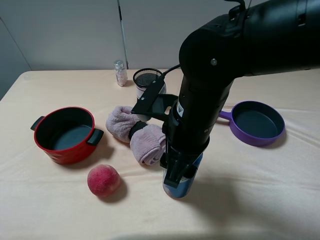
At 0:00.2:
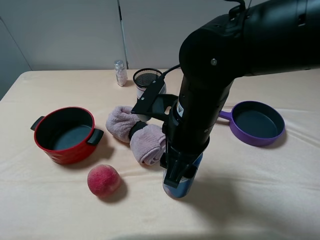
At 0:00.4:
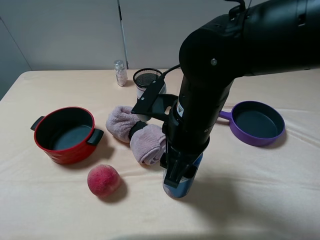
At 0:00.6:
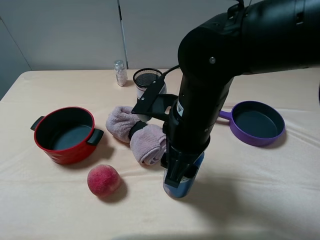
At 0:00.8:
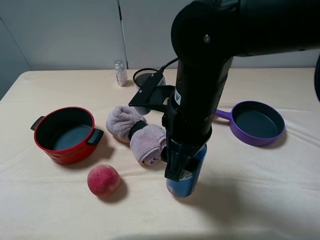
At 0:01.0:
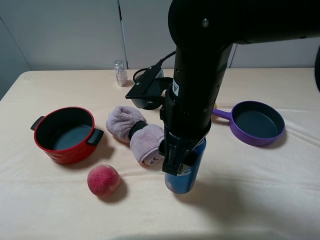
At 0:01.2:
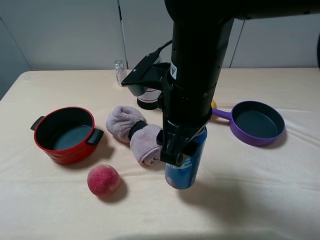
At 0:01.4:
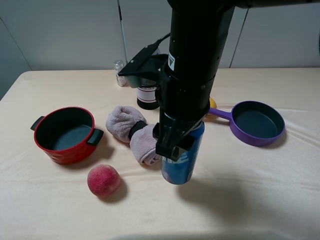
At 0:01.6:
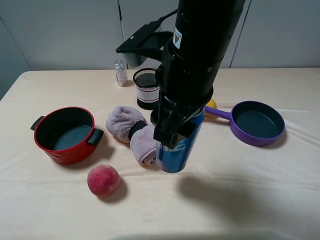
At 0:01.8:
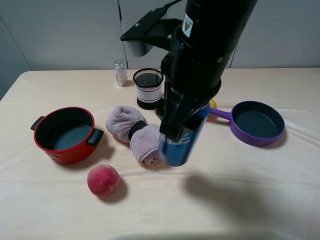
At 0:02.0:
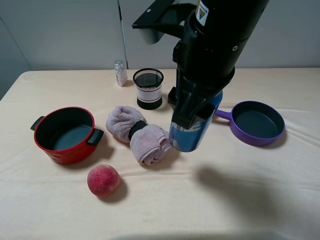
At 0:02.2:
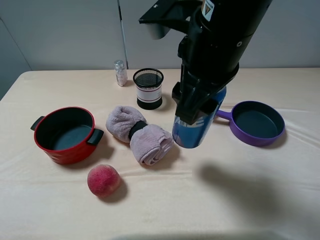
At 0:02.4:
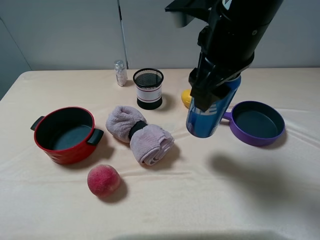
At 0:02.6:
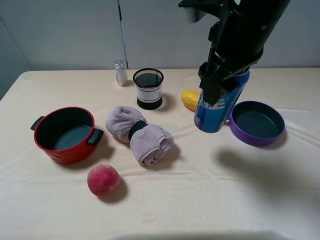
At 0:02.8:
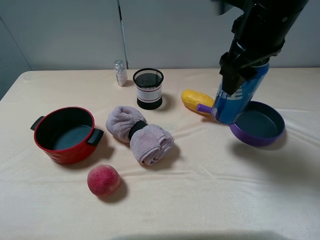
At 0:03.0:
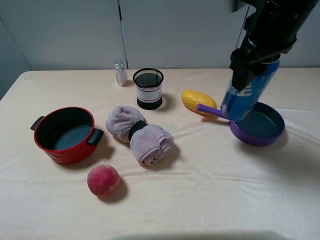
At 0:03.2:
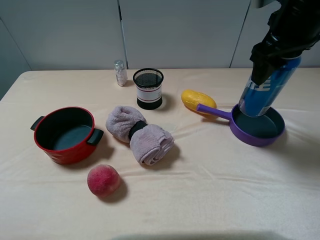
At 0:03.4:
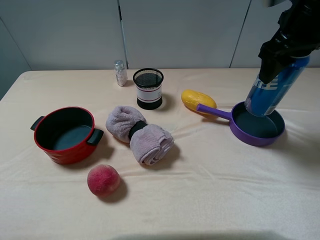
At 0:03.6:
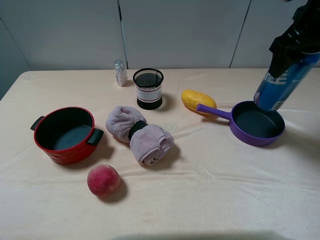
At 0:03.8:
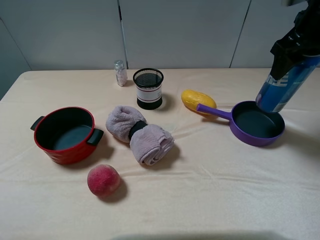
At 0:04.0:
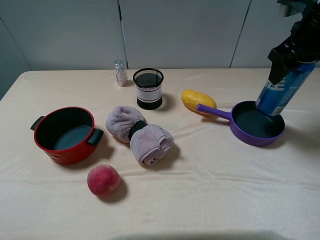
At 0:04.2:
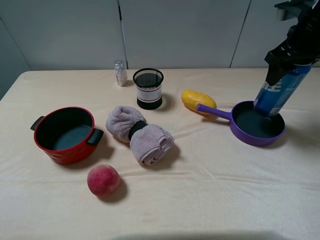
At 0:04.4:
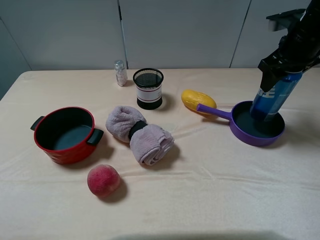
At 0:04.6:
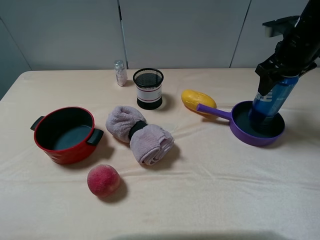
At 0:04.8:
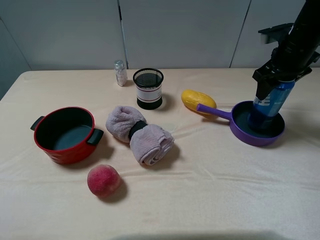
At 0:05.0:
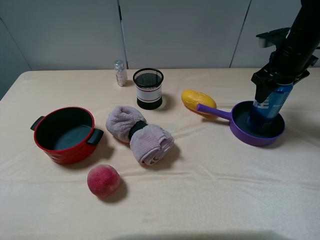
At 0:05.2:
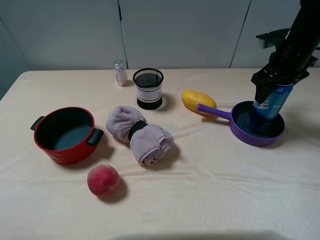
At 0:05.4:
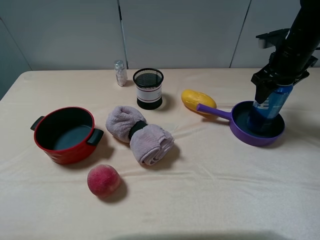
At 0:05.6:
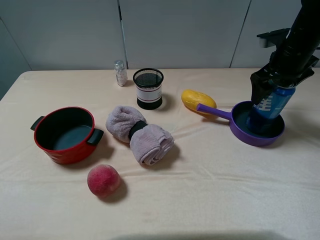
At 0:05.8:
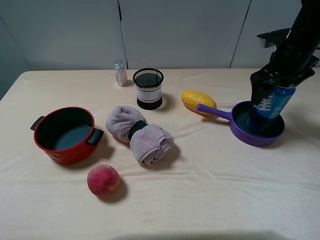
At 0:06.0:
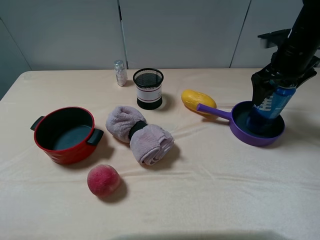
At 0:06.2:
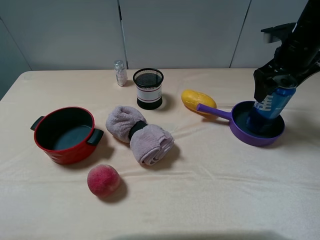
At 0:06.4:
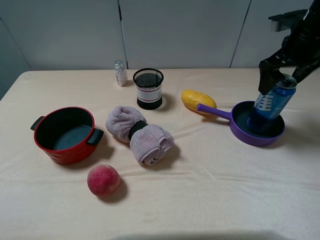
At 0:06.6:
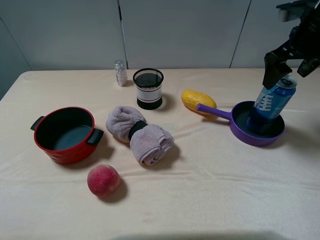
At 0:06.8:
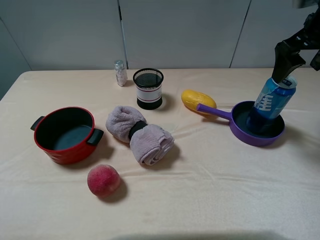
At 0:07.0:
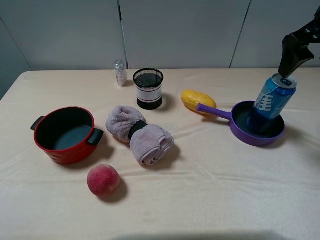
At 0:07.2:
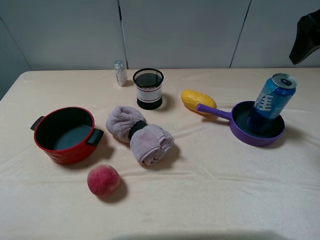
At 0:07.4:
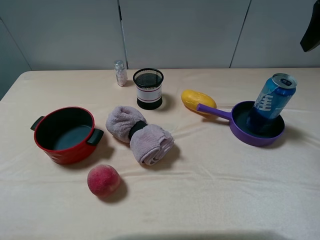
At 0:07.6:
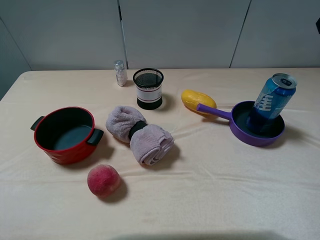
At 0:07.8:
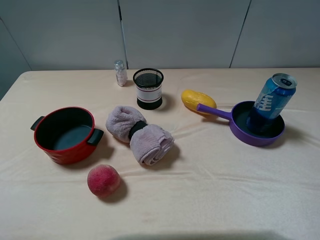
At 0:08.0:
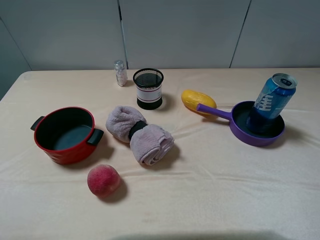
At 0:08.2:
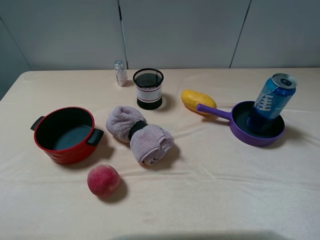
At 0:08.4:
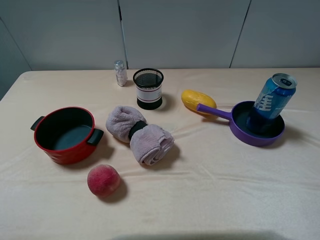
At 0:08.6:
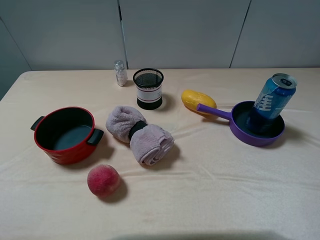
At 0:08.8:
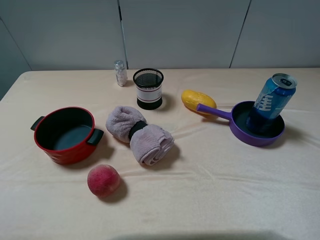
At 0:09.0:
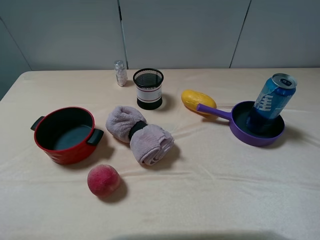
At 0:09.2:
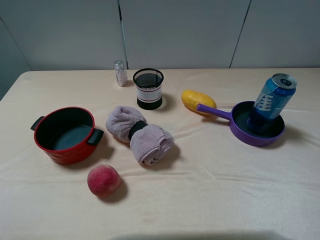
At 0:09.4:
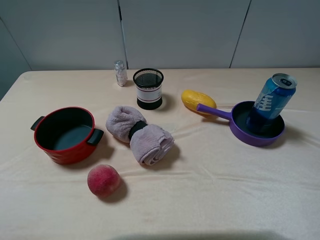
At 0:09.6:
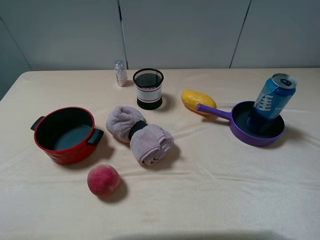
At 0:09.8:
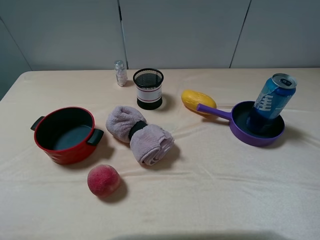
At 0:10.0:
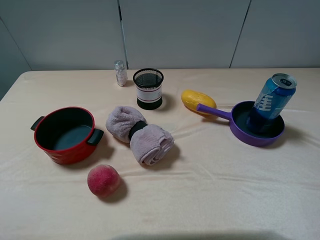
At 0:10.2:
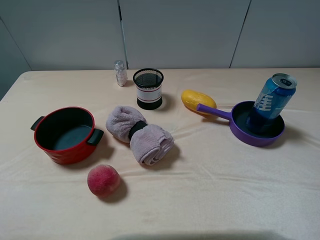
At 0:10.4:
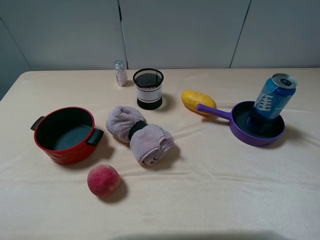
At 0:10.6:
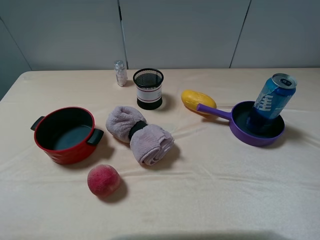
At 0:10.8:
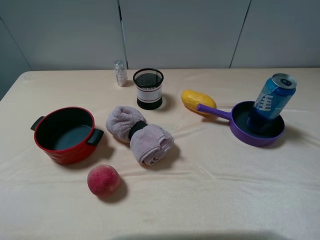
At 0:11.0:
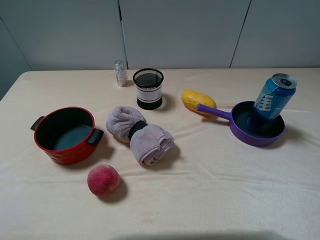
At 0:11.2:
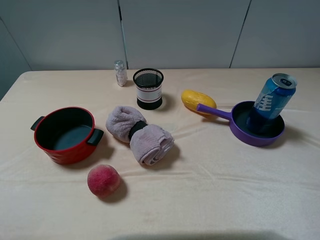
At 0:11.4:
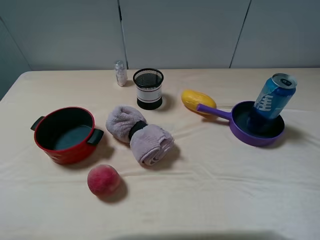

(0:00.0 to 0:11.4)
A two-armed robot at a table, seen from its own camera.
Task of the whole recording: pick up an item with a gripper and place it in a random container on the table.
Step, 0:00.8 - 0:07.0: Place the beer into the purple pot with the right gripper.
0:00.0 - 0:01.4: The right gripper travels upward by some 5 cm.
0:01.4 - 0:02.8: The right gripper goes about 15 cm to the right and forward.
0:02.8 - 0:04.2: The right gripper travels to the right and forward by roughly 15 cm.
0:04.2 - 0:05.6: The right gripper shifts some 5 cm downward, and opens.
0:05.6 - 0:07.2: The right gripper shifts approximately 15 cm upward and backward.
0:07.2 - 0:08.6: The right gripper shifts approximately 20 cm backward.
0:10.0 - 0:11.4: Neither gripper changes place.
